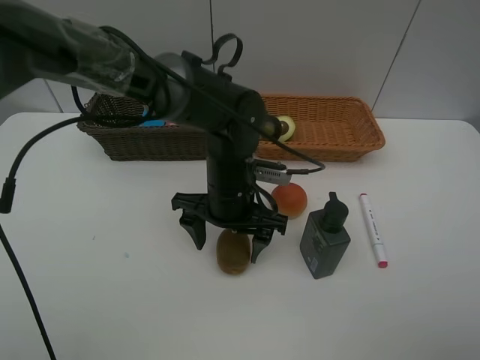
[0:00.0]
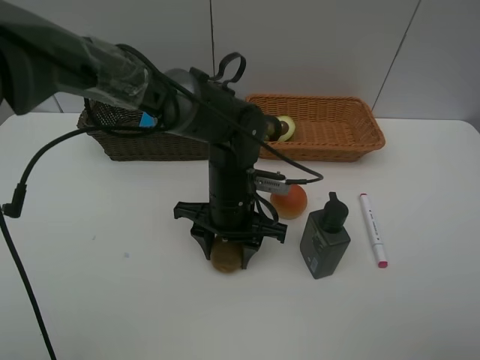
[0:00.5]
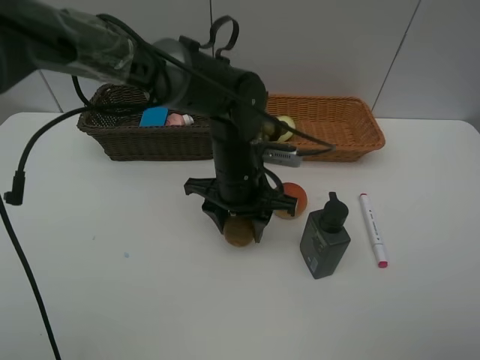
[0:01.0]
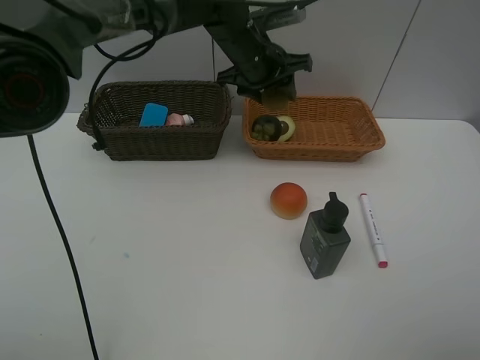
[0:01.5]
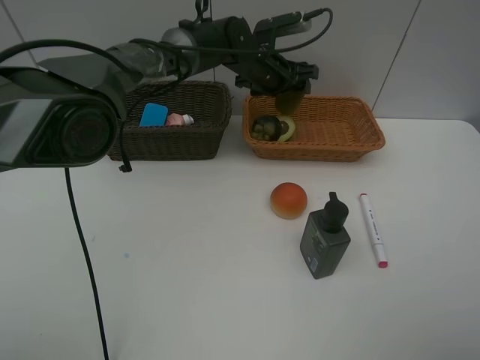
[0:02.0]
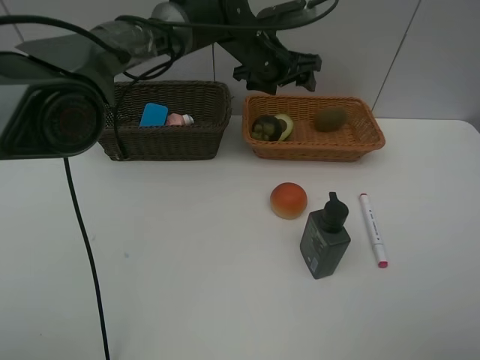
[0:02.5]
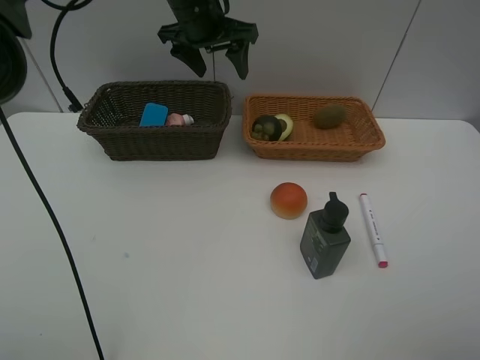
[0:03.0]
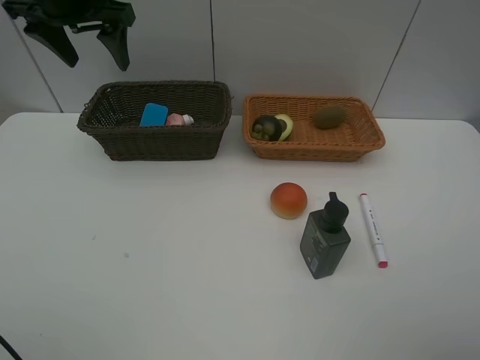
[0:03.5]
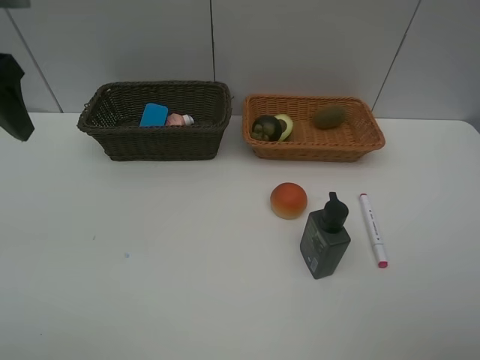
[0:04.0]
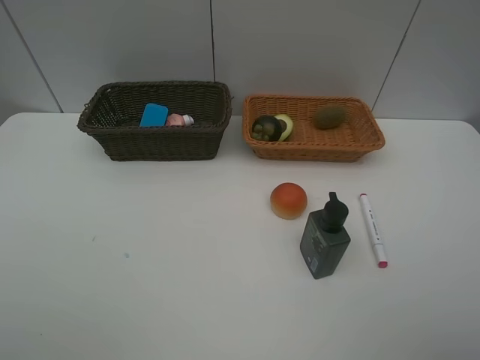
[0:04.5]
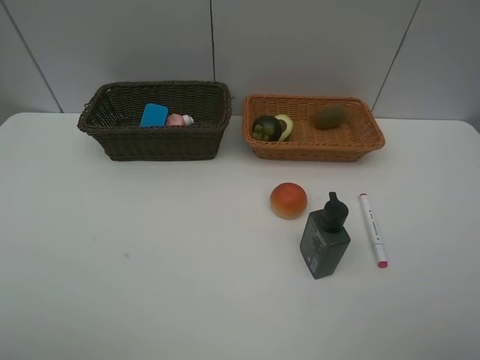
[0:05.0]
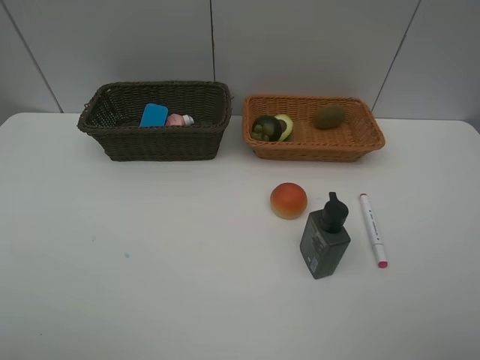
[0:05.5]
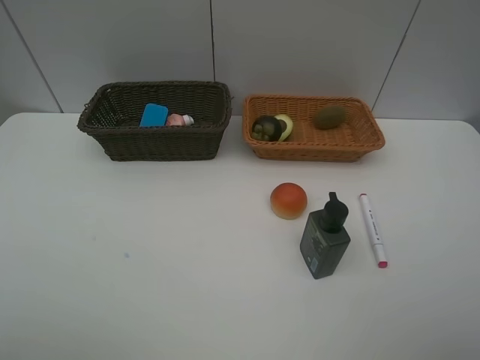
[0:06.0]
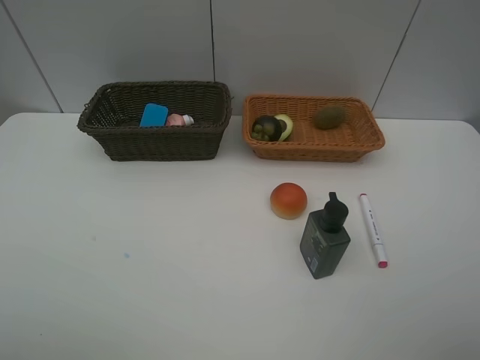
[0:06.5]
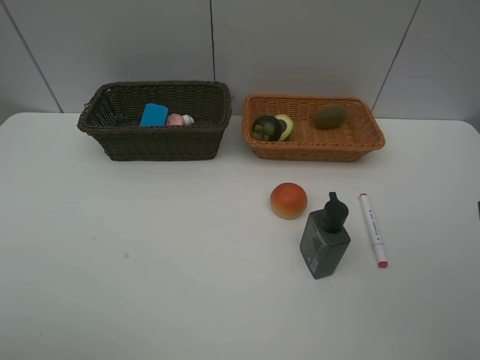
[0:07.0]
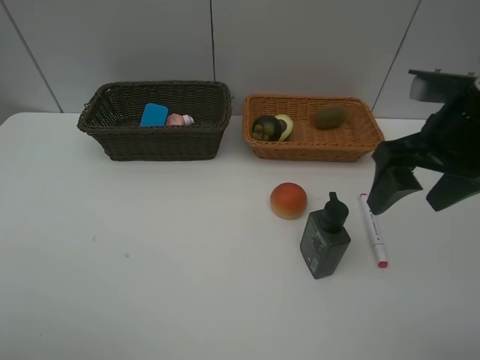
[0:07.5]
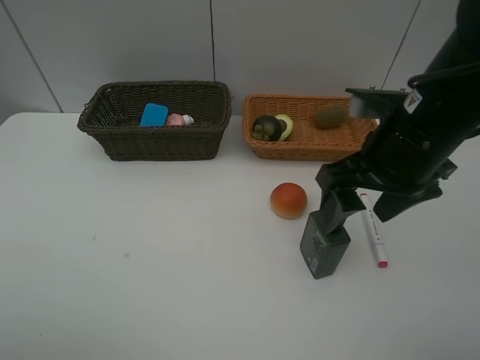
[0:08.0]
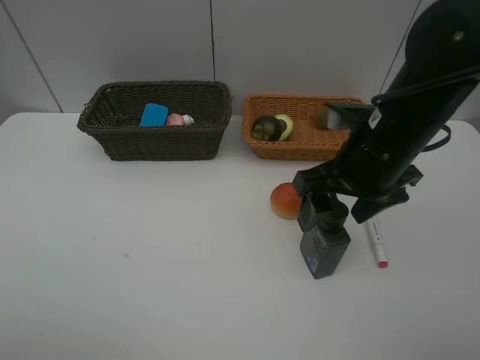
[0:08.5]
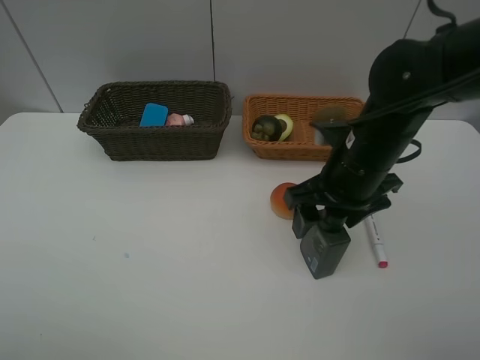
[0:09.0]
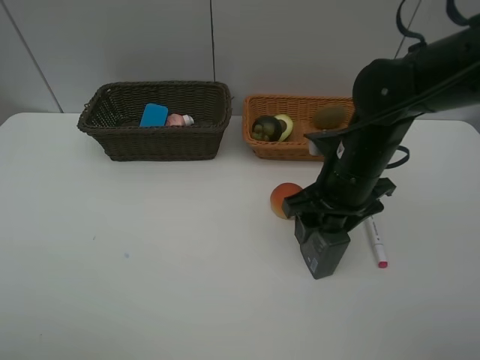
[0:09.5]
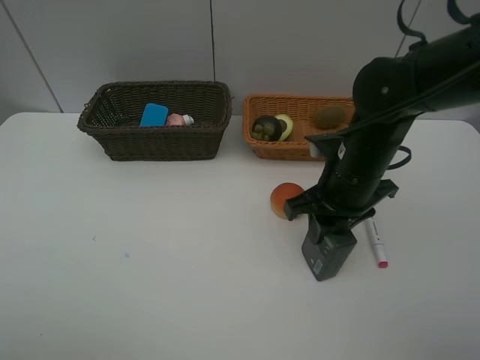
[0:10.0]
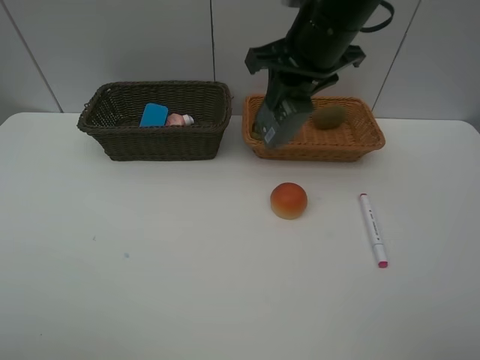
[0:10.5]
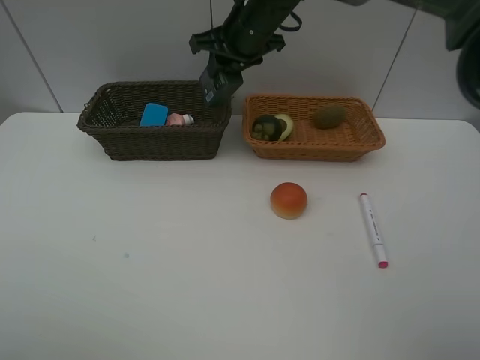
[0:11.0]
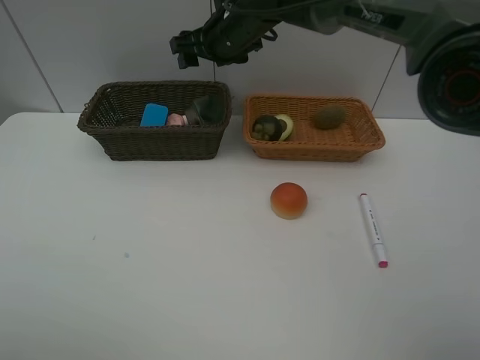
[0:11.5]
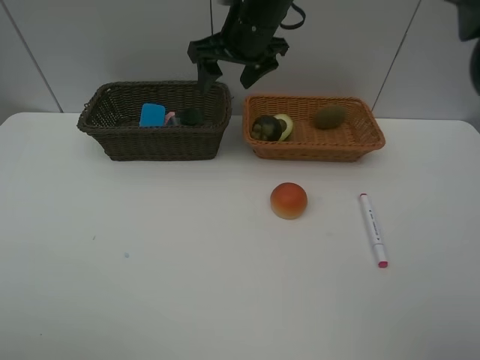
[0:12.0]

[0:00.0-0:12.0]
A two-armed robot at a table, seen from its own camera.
Task of the whole recording: Place multiple objects separately in different baskets.
Step, 0:01.5 to 0:02.0: Place the kiwi in the light basket with left gripper.
Step, 0:02.5 to 0:10.0: Pick up the hard facial cleanser with right gripper.
Step, 0:10.5 to 0:11.5: Place the hard facial cleanser in the dark basket with right gripper.
0:00.0 to 0:02.0: The left gripper travels forward by about 20 cm, and closes, then opens again.
0:02.0 to 0:04.0: The left gripper goes about 40 cm to the left, backward and upward.
0:04.0 to 0:06.0: The left gripper goes about 25 cm backward.
0:06.0 to 0:08.0: The right gripper moves forward and to the left, some 25 cm.
0:08.0 to 0:10.0: The right gripper goes approximately 10 cm downward, and closes up.
0:10.0 to 0:12.0: The right gripper travels forward, to the left and upward by about 25 cm, and opens its fingers.

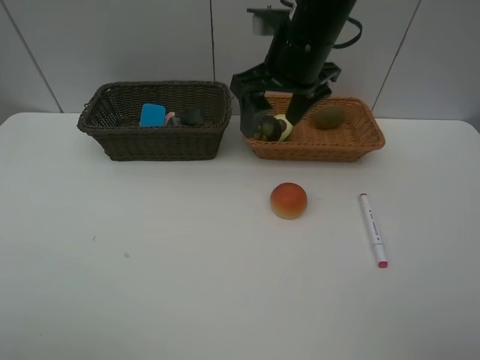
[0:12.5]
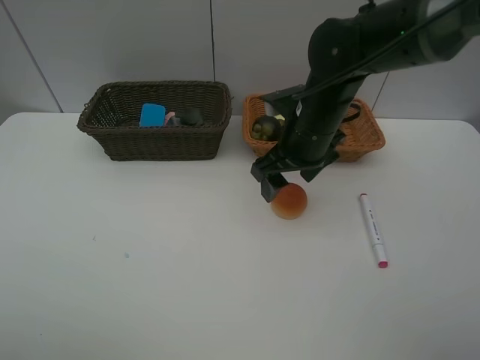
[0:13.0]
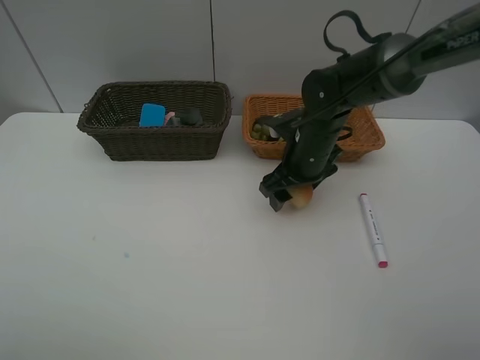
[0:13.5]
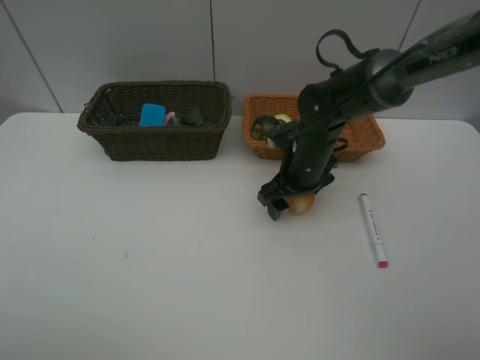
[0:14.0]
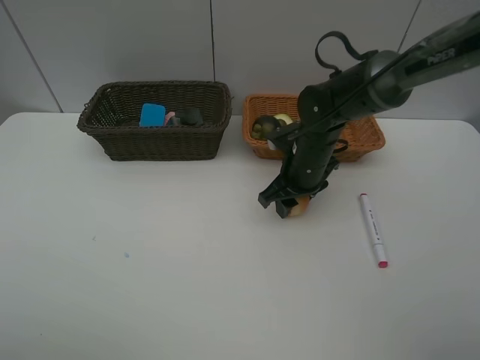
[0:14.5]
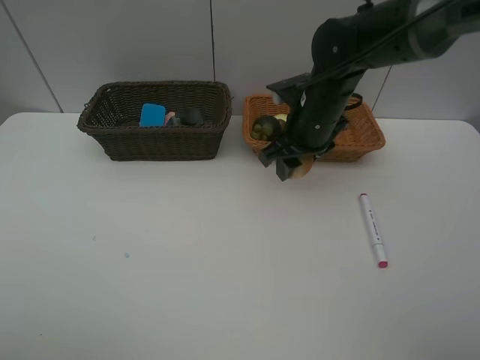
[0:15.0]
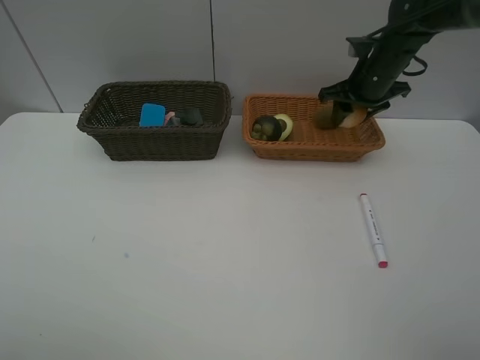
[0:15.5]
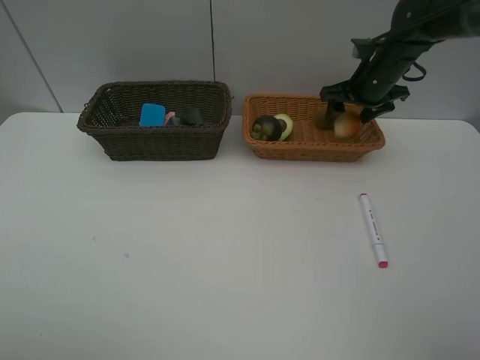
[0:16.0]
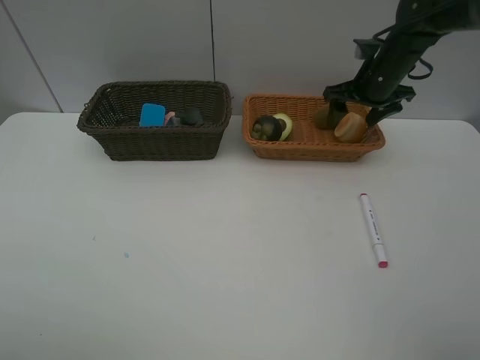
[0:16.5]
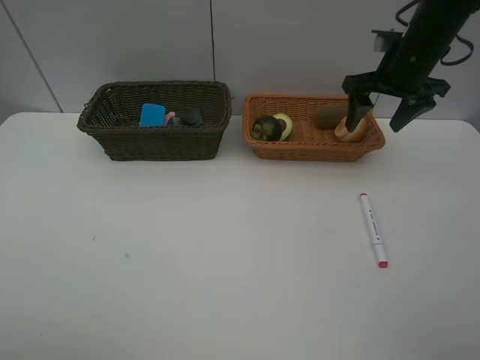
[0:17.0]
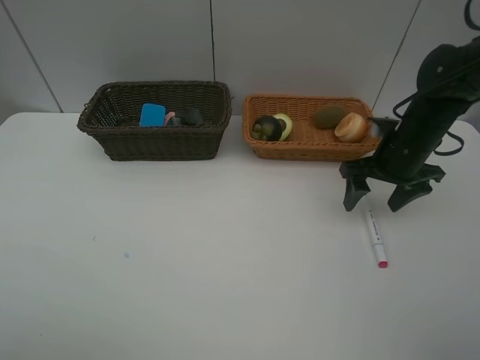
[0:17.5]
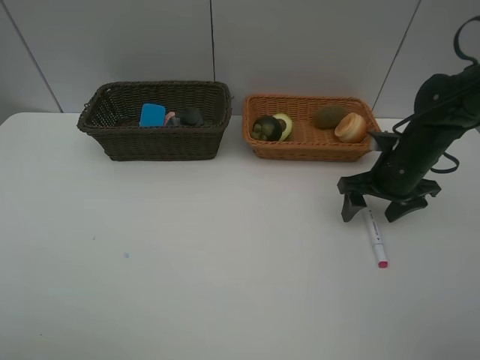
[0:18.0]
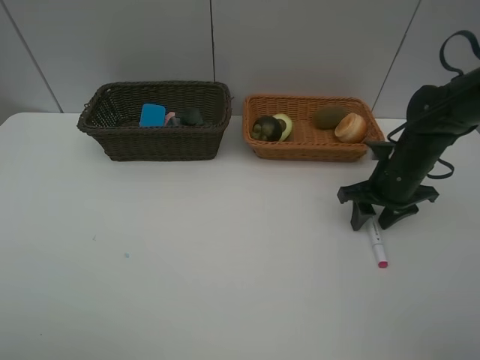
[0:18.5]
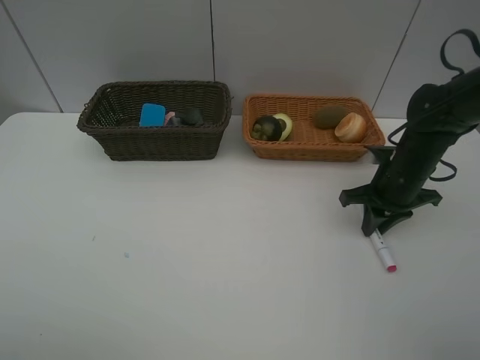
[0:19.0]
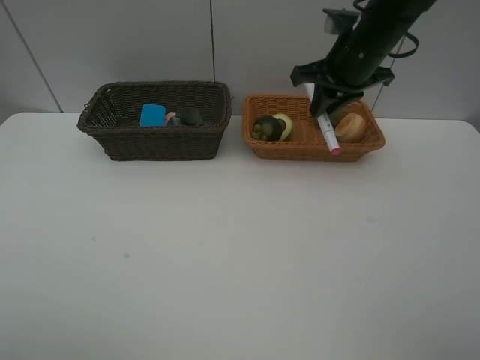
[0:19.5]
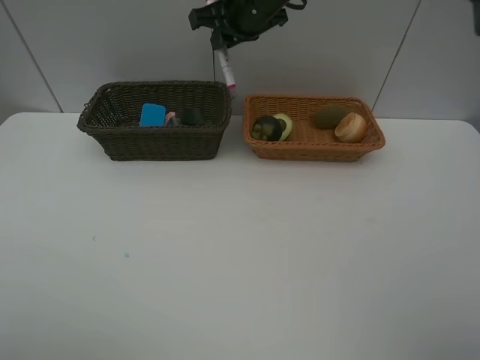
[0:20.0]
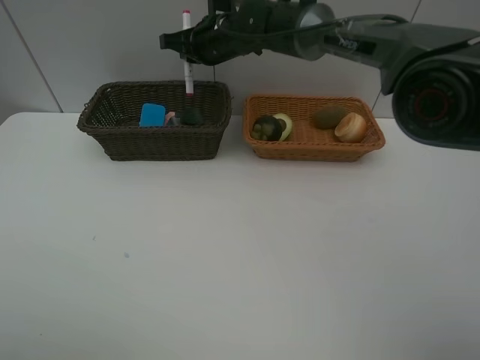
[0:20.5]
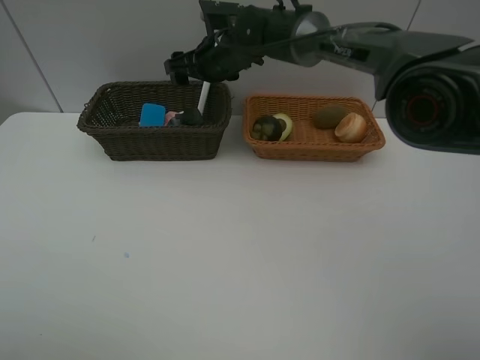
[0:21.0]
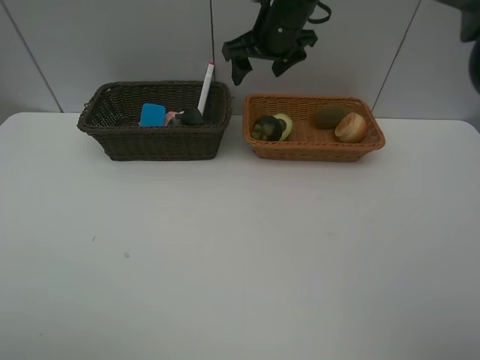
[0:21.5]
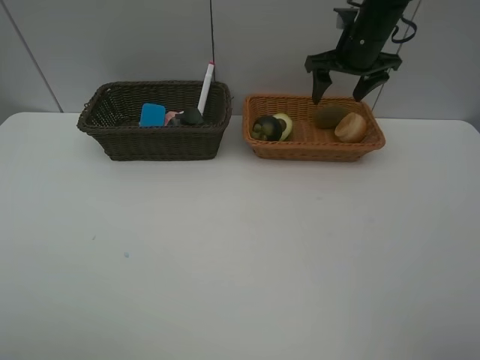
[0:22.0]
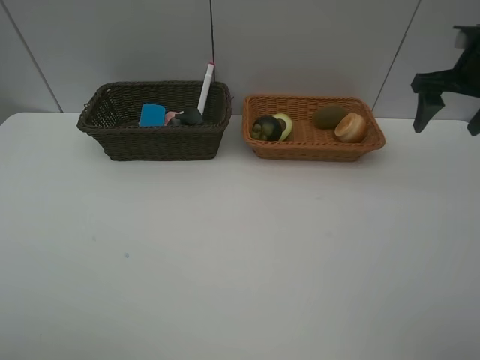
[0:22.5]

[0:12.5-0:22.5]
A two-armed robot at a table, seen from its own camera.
Task of the whole recording: Place multiple objects separately in different baskets.
Step, 0:12.5 to 0:14.5: Pick up egg yolk pastry with right gripper.
Step, 0:15.0 to 0:16.5: Place the egg yolk pastry in the light basket with right gripper.
Step, 0:17.0 to 0:19.0: Pick up pink marker pen with right gripper.
Step, 0:19.5 to 0:21.0: Place the pink marker pen in the dark basket with right gripper.
0:12.5 to 0:14.5: The right gripper goes some 15 cm downward, and closes.
0:14.5 to 0:16.5: The right gripper shifts approximately 20 cm to the right, upward and forward, and opens.
0:16.5 to 0:18.5: The right gripper travels backward and downward by some 15 cm, and closes.
0:18.5 to 0:20.5: The right gripper is displaced to the left, forward and upward by some 35 cm, and closes up.
0:20.5 to 0:22.5: The right gripper travels to the right by some 35 cm, and opens up.

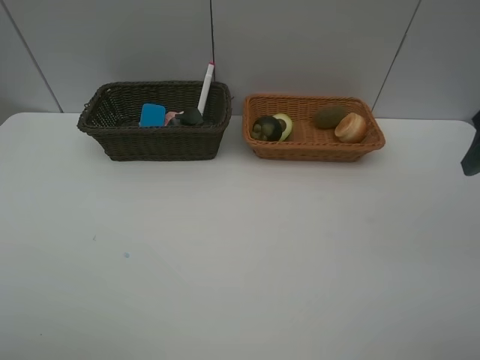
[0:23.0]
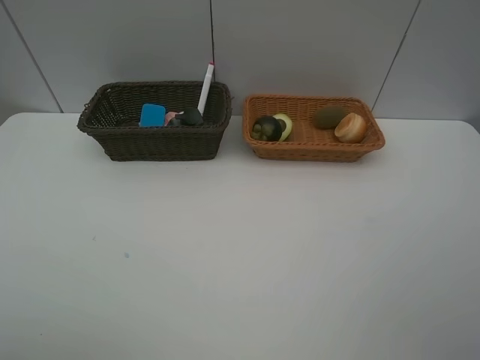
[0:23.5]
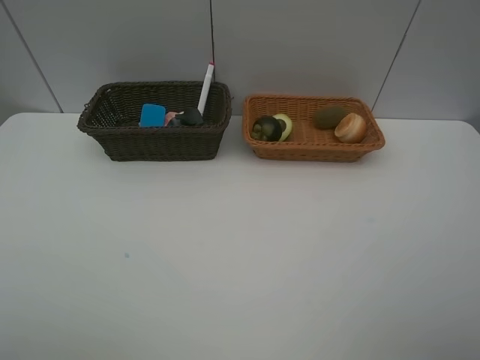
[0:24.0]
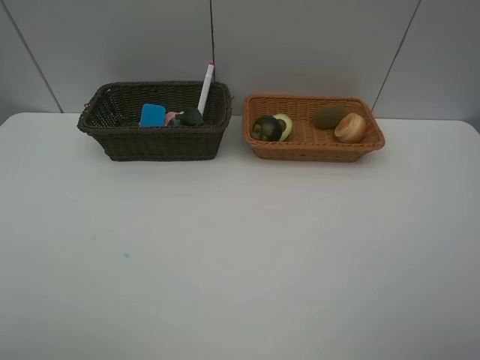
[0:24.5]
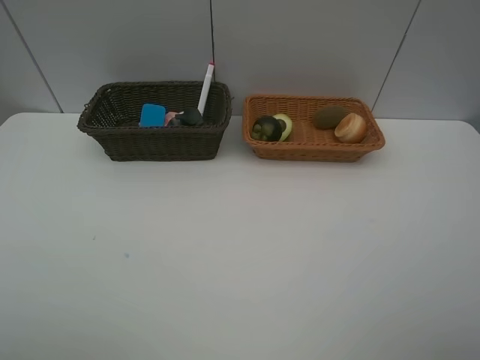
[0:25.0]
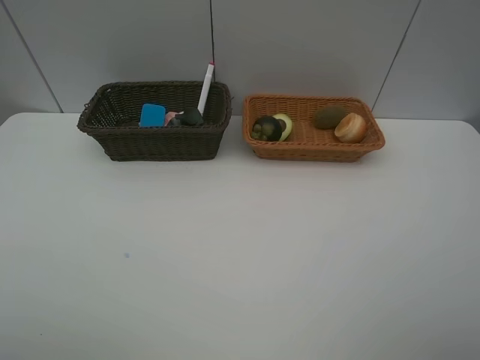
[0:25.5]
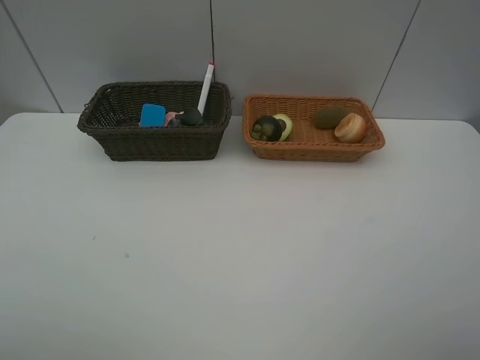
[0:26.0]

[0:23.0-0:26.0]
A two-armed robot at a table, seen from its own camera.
Task of the whole recording: Place multiple objects separately in different baskets.
0:24.5 to 0:26.0: Both grippers stay put.
